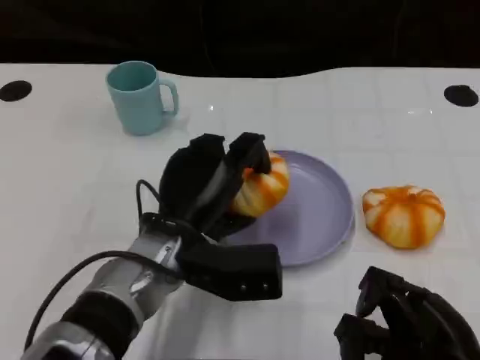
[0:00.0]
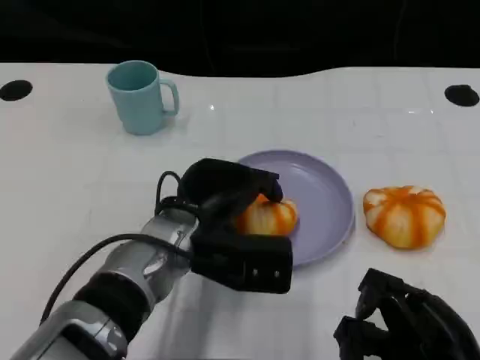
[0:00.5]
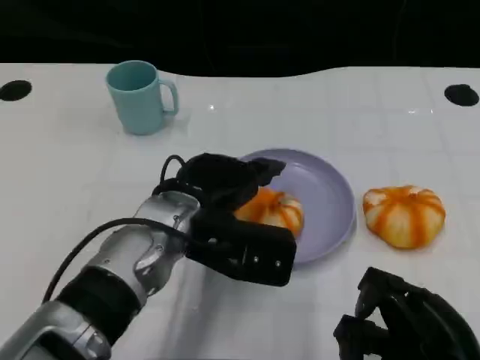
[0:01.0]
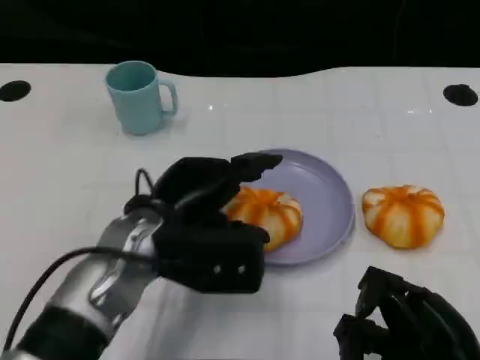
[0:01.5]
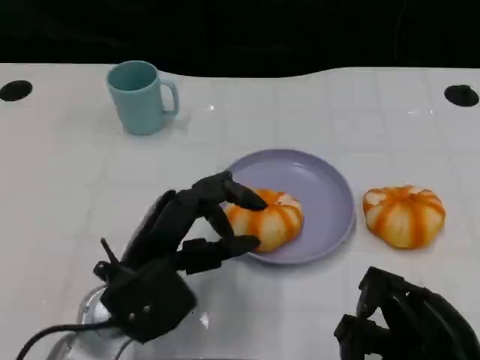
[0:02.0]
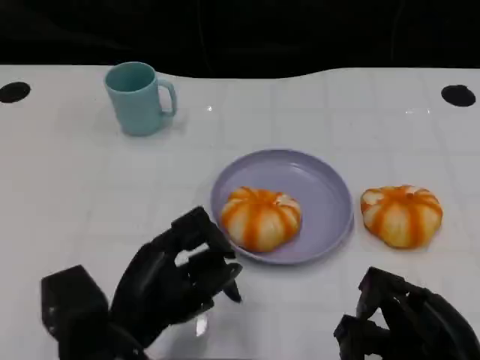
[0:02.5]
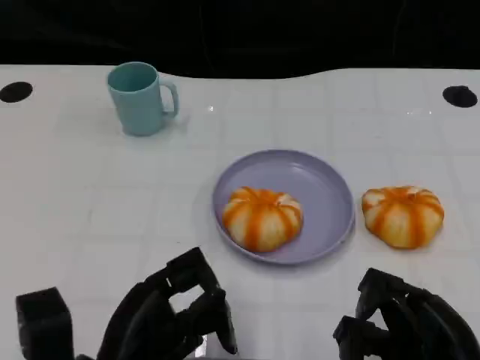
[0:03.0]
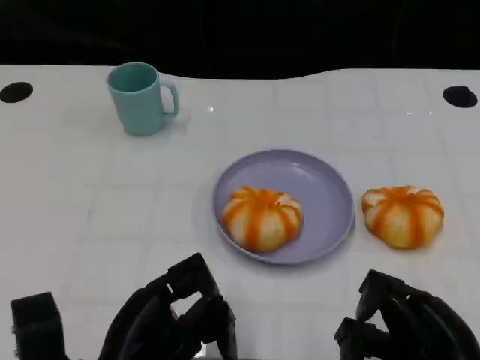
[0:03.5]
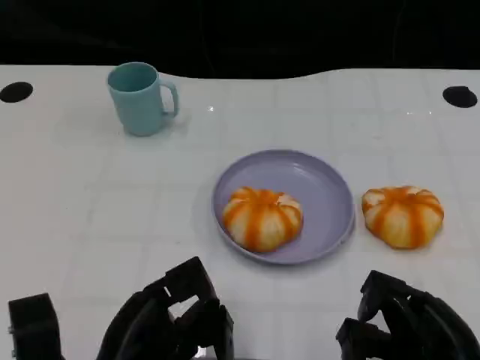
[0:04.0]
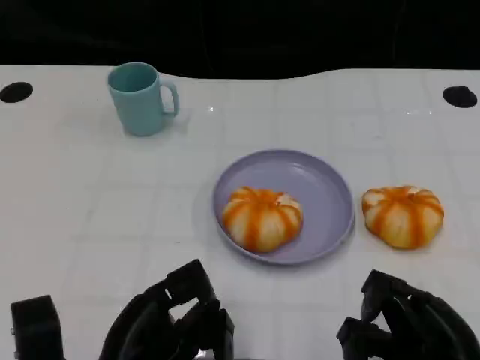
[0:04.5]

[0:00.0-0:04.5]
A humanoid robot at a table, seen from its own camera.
Task of the whole recording: Grasp the bread from the table and place it into the plate.
0:00.0 to 0:02.0: The left hand goes about 5 cm to the left and backward.
0:02.0 to 0:04.5: The left hand goes about 10 cm backward.

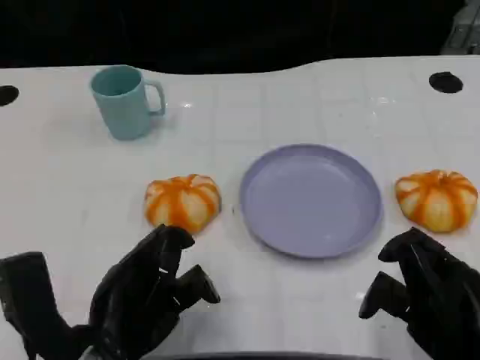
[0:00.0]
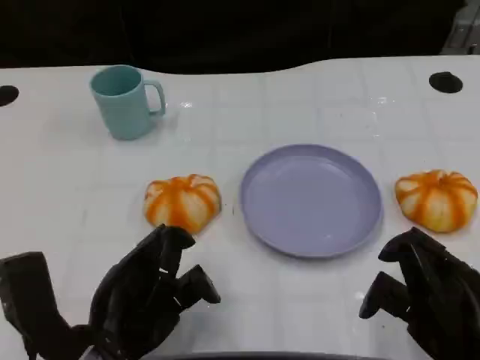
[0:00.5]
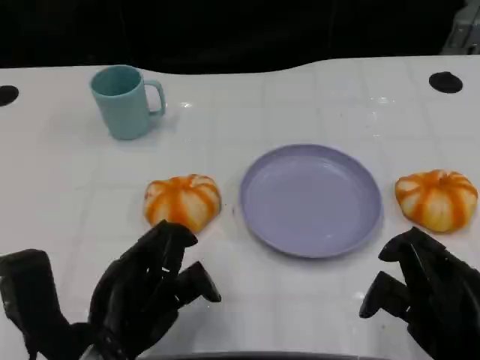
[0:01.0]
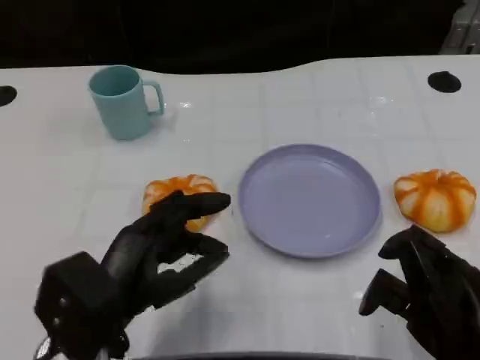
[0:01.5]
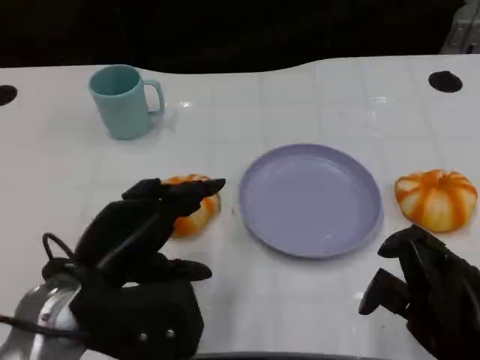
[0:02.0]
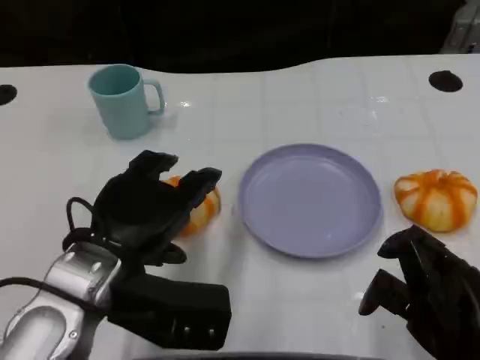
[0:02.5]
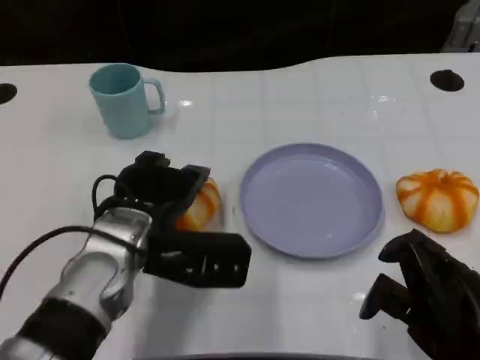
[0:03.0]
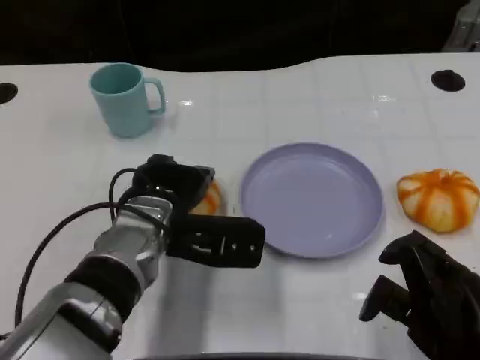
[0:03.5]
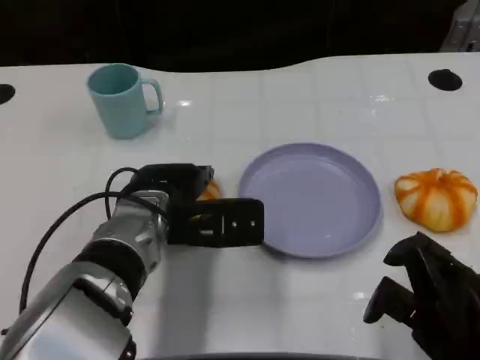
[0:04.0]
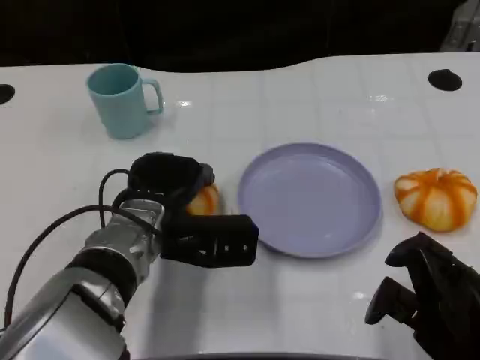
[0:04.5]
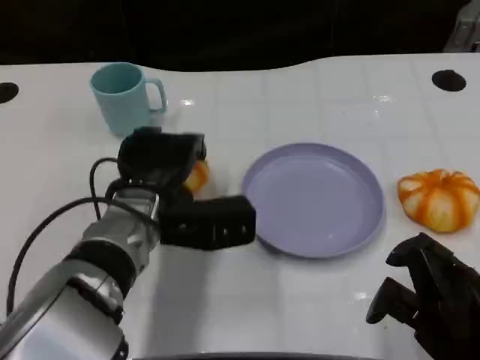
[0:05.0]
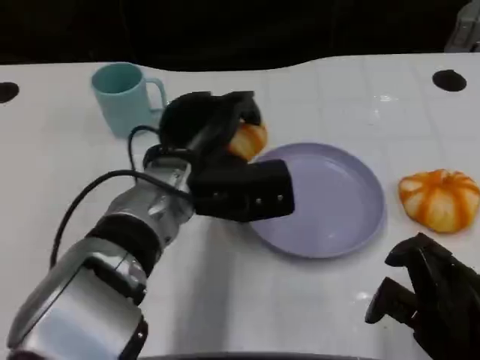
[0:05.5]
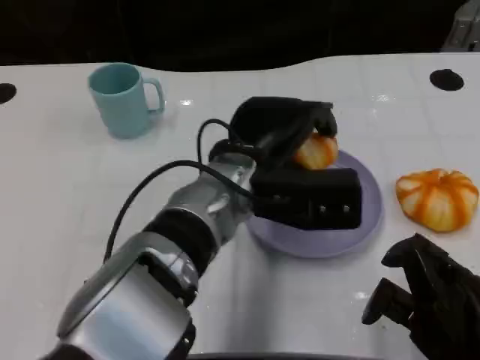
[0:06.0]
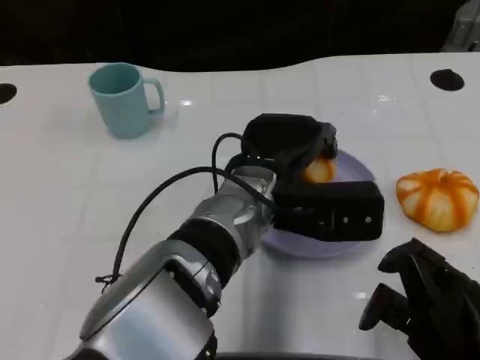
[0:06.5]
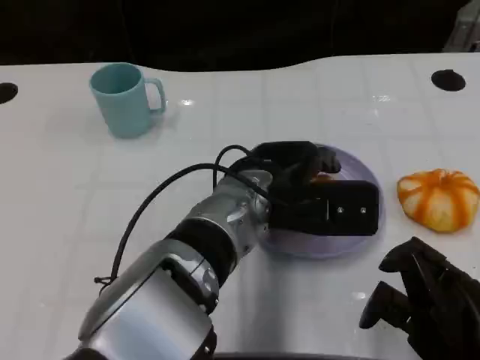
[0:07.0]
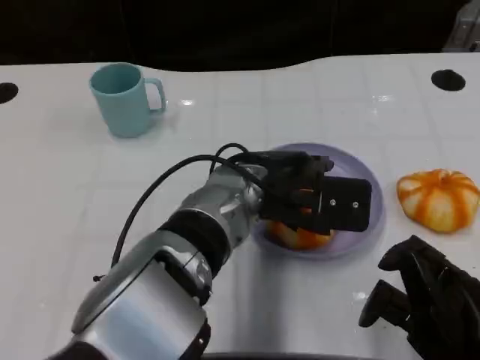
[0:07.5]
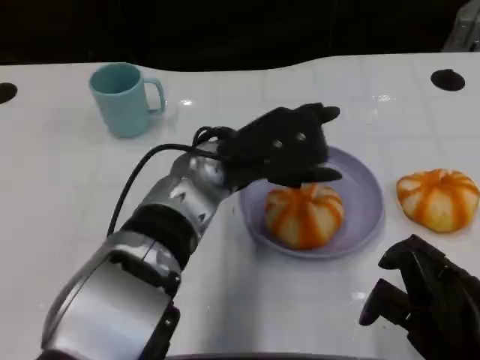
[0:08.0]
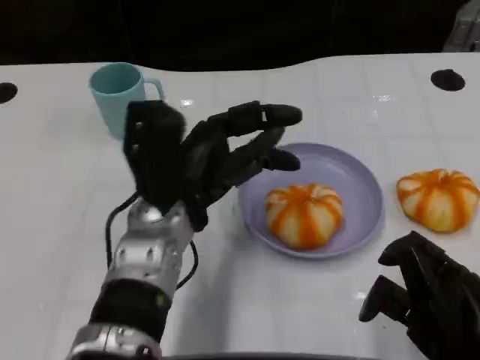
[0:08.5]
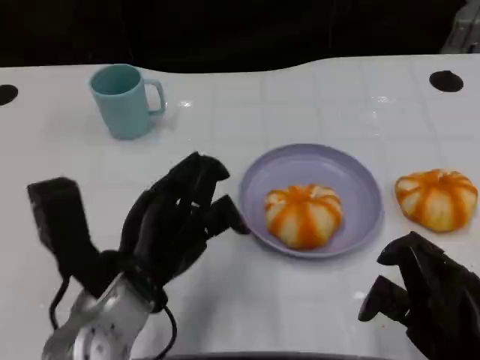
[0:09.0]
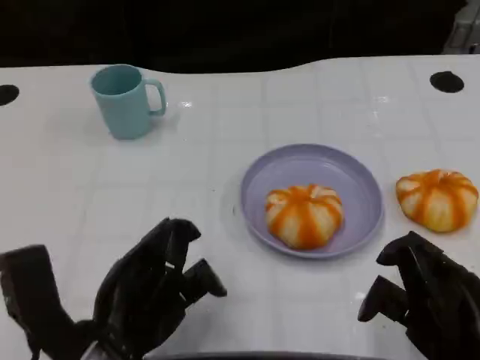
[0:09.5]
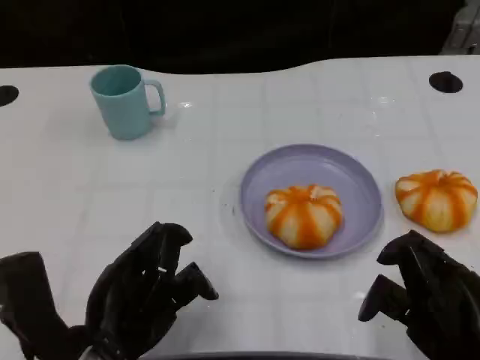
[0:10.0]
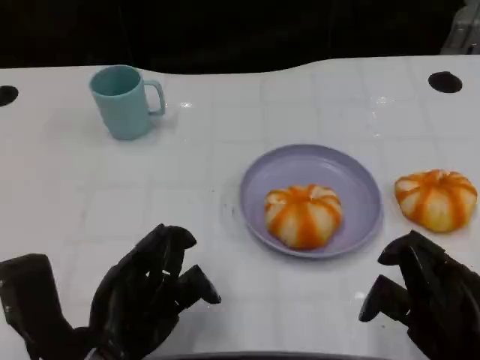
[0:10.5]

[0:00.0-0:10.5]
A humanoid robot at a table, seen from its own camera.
Task of the whole recording: Grasp the bread from the table and place it into the plate.
0:00.0 to 0:02.0: The left hand shifts by roughly 5 cm.
0:02.0 to 0:04.0: The left hand shifts approximately 10 cm forward and to the right.
0:04.0 to 0:06.5: The left hand moves to the right, approximately 10 cm.
0:06.5 to 0:08.5: The left hand travels to the left by approximately 10 cm.
0:08.5 to 0:10.5: The left hand shifts some 15 cm backward and to the left.

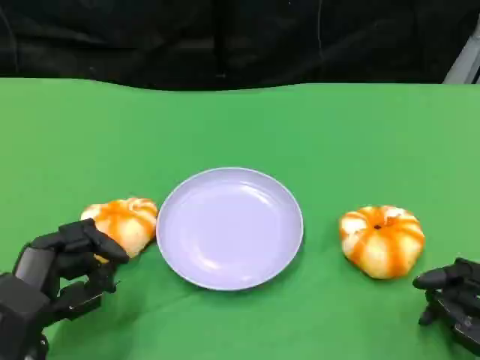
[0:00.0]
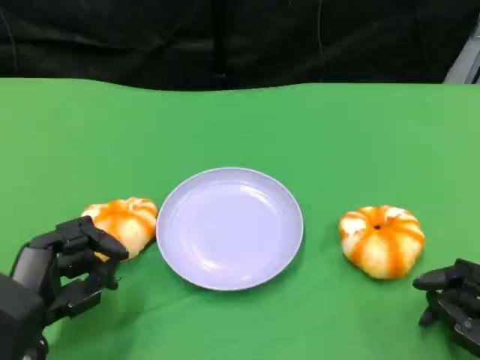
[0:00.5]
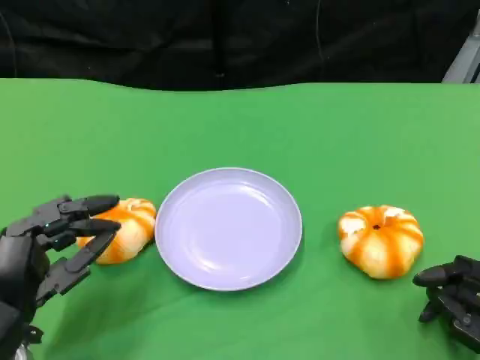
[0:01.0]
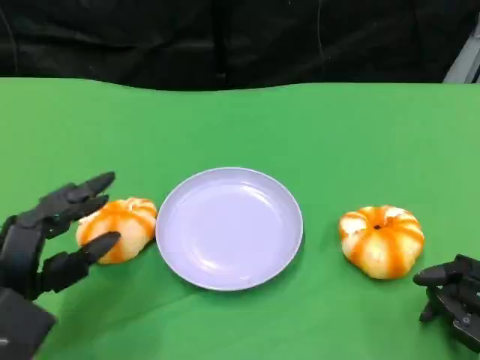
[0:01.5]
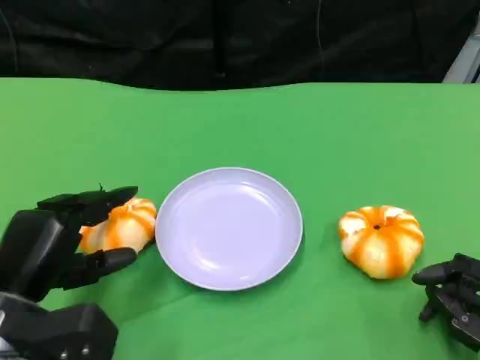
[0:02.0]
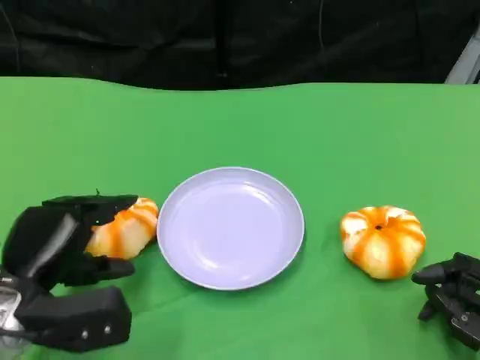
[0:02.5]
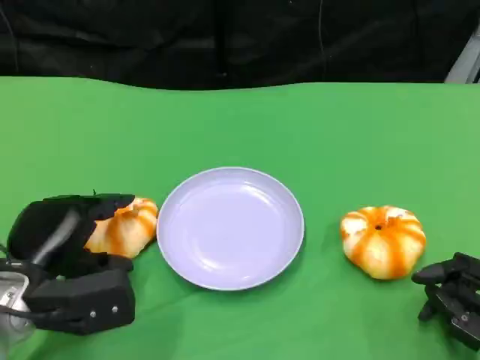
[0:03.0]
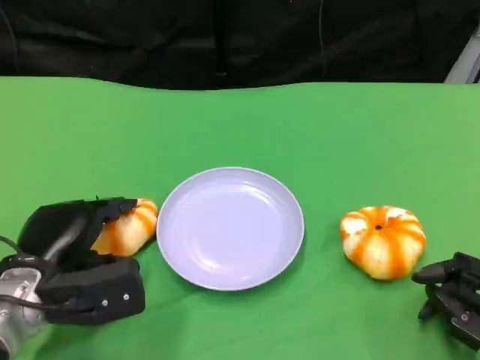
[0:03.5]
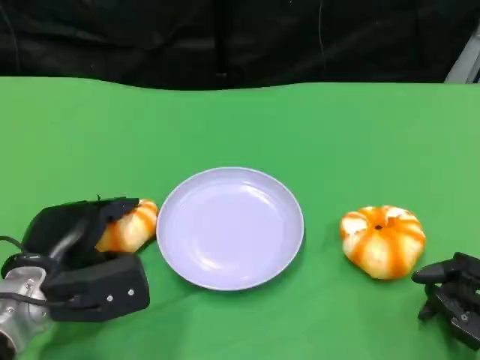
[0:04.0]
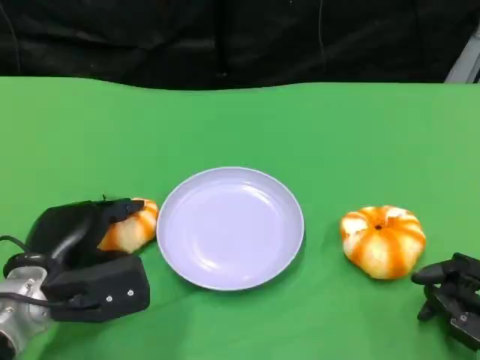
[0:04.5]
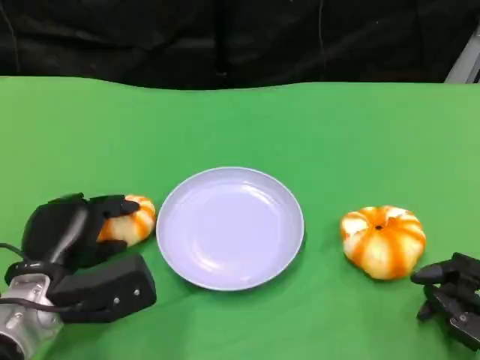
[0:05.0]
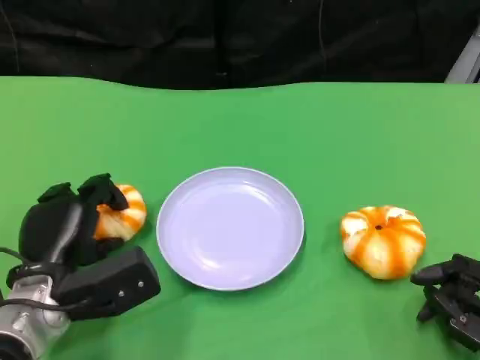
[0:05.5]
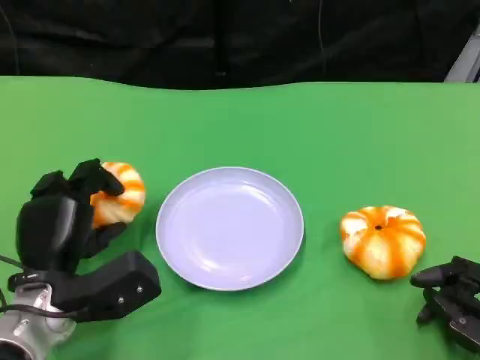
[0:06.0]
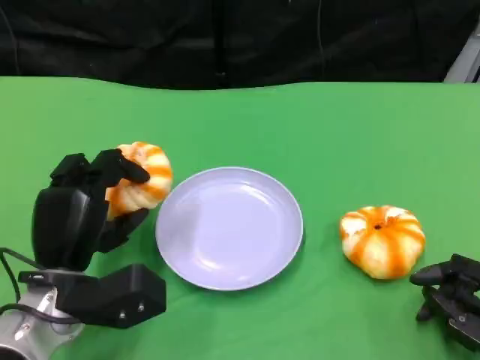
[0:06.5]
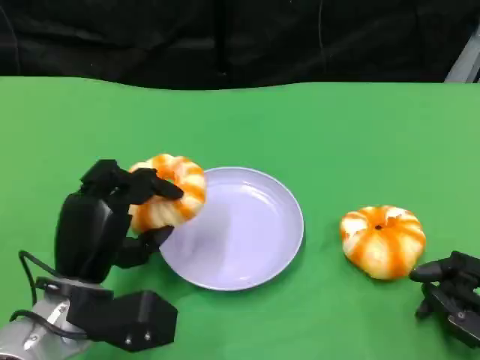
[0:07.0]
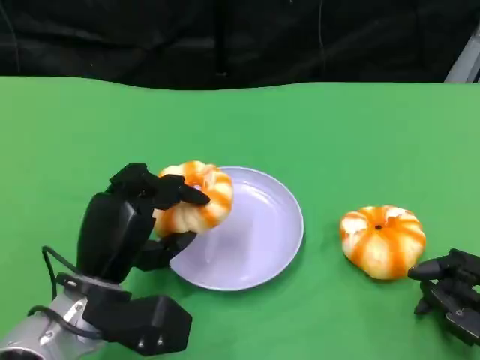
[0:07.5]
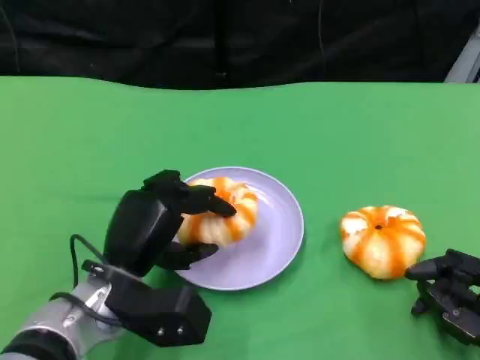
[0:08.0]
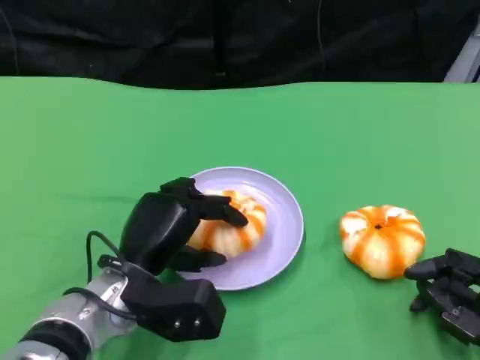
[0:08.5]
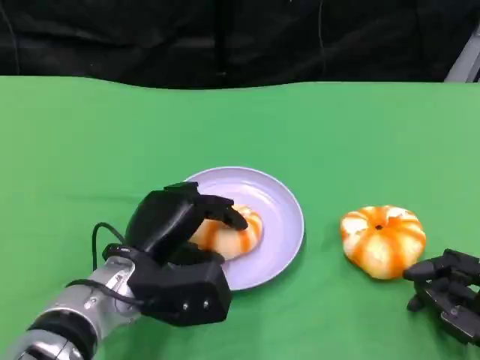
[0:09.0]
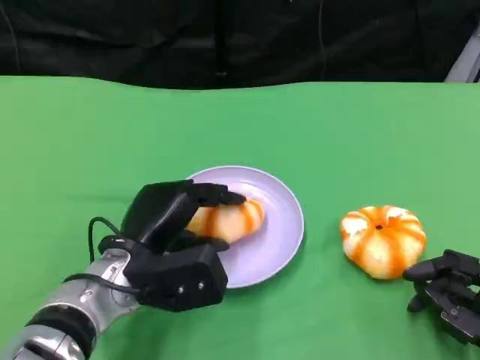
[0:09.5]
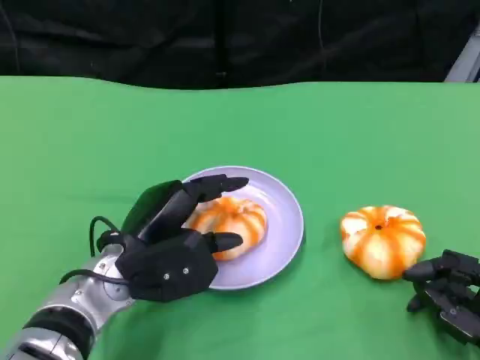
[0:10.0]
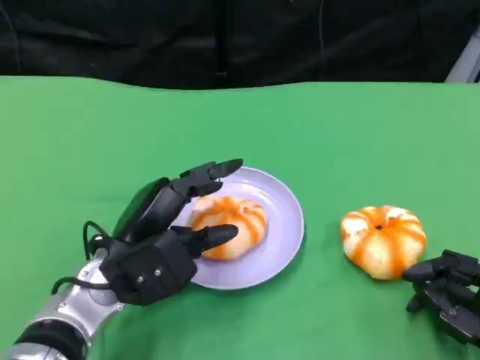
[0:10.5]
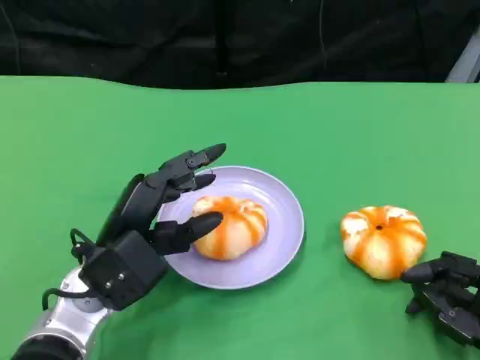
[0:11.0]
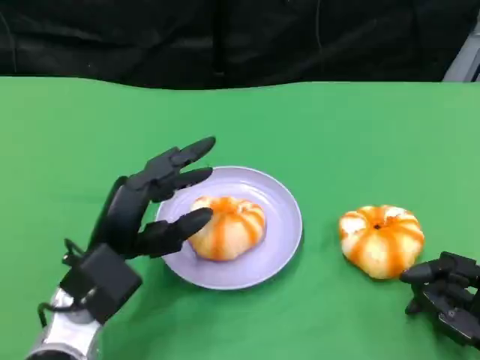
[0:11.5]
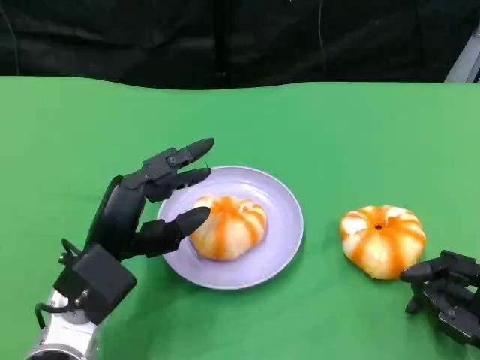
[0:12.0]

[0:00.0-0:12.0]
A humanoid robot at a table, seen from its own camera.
Task of the whole recording: Grasp the bread from the table and place it into the plate.
0:06.0 to 0:08.0: The left hand moves to the right, roughly 5 cm.
